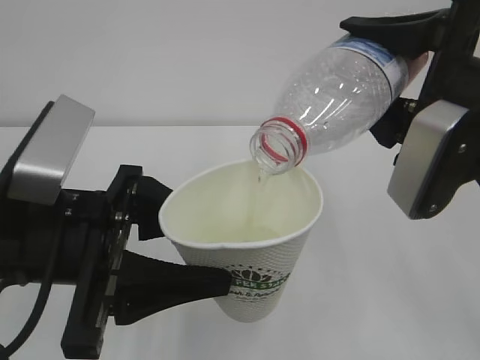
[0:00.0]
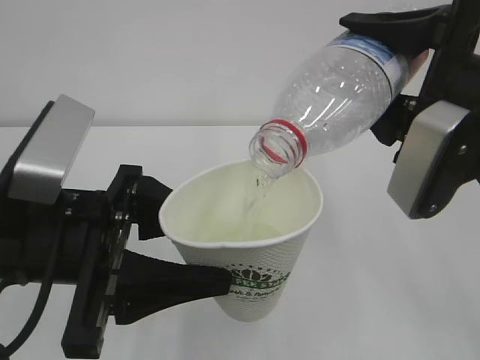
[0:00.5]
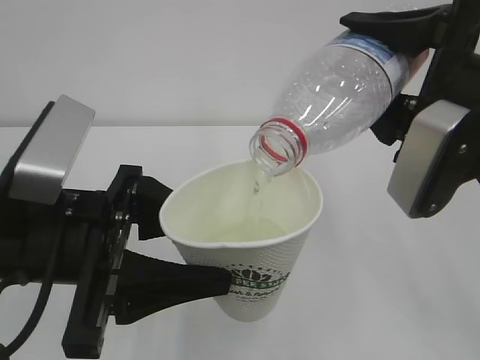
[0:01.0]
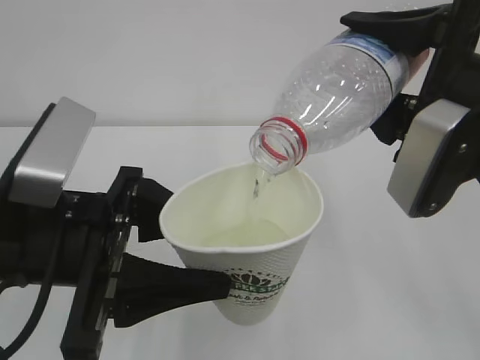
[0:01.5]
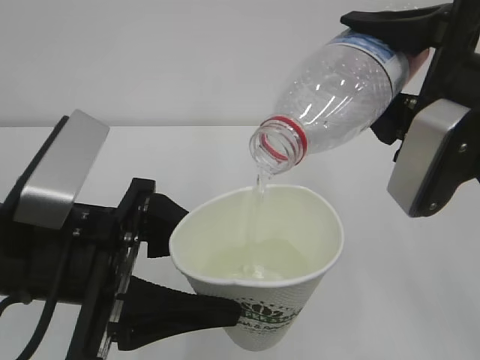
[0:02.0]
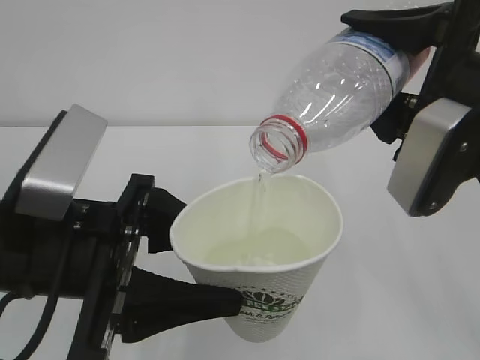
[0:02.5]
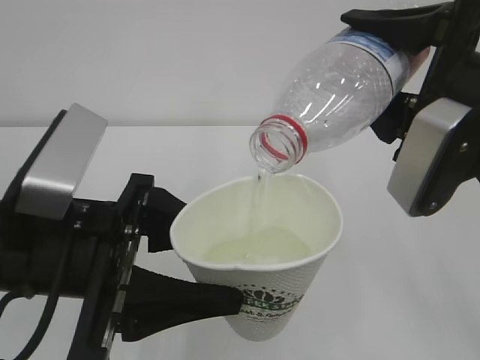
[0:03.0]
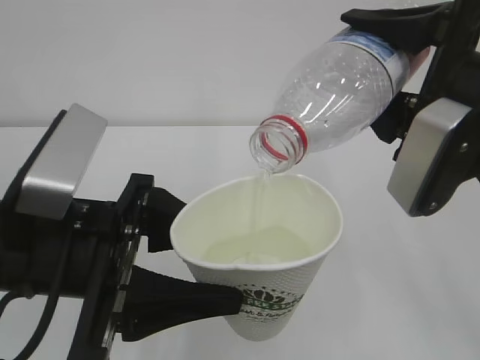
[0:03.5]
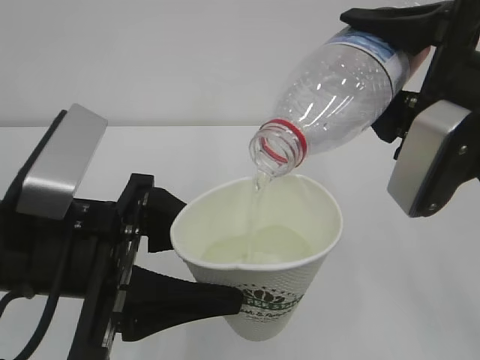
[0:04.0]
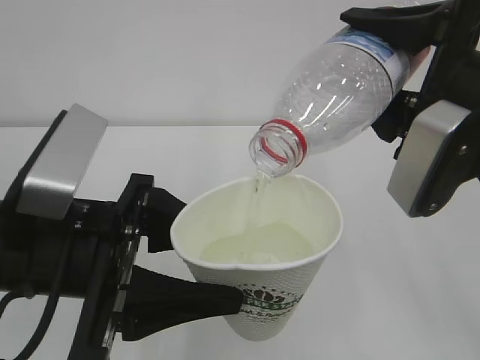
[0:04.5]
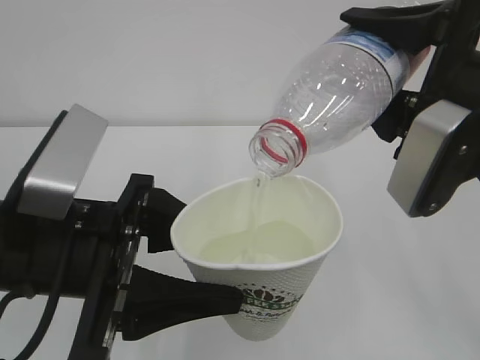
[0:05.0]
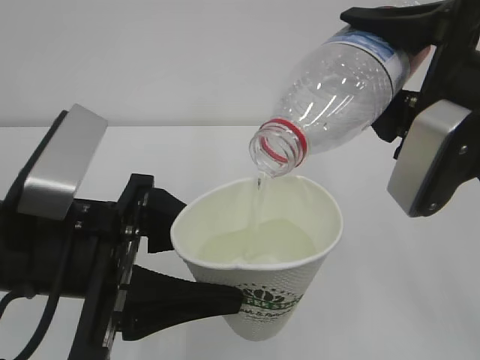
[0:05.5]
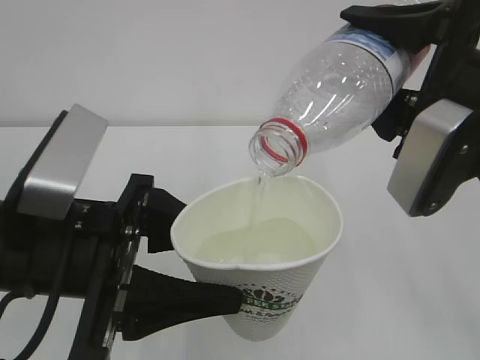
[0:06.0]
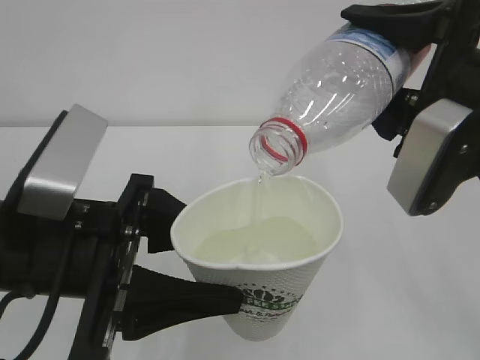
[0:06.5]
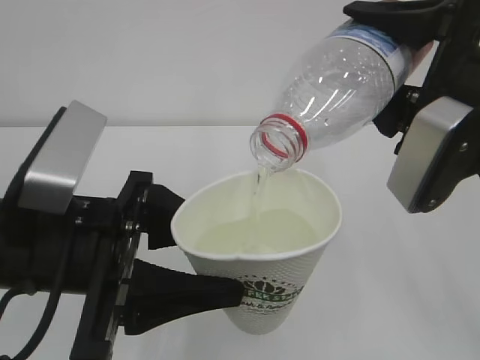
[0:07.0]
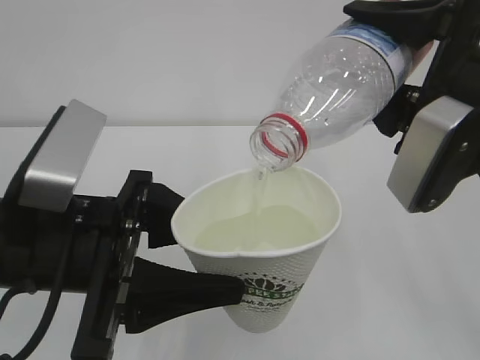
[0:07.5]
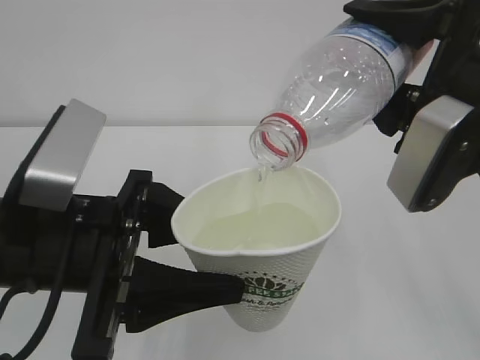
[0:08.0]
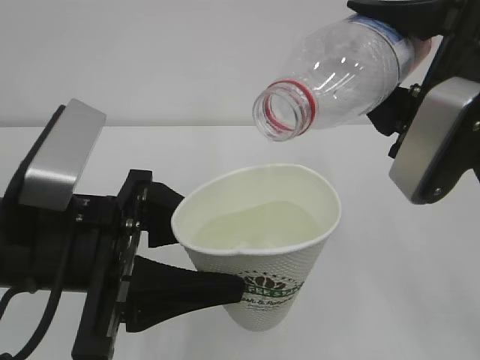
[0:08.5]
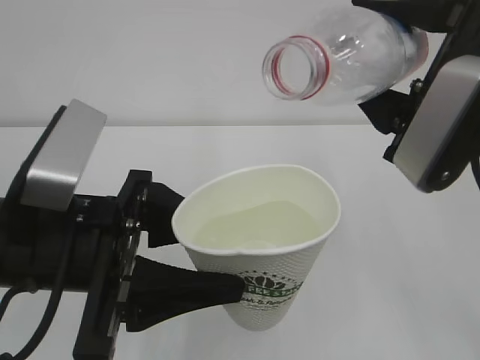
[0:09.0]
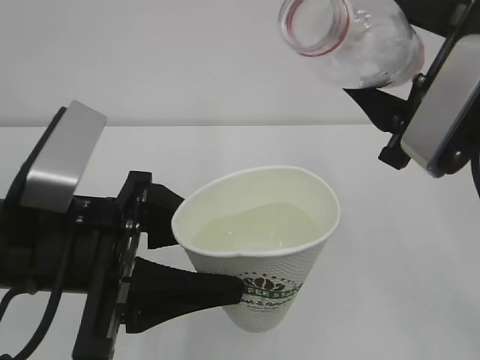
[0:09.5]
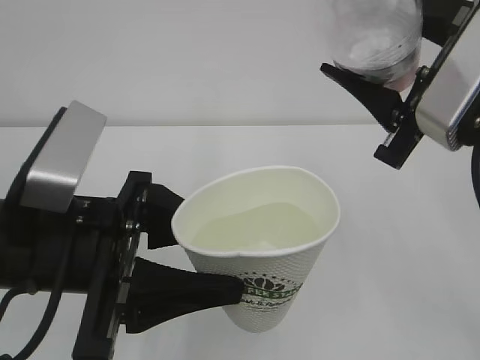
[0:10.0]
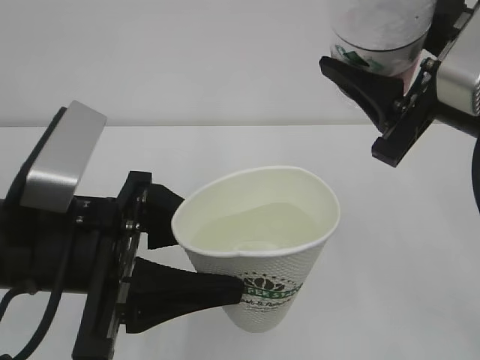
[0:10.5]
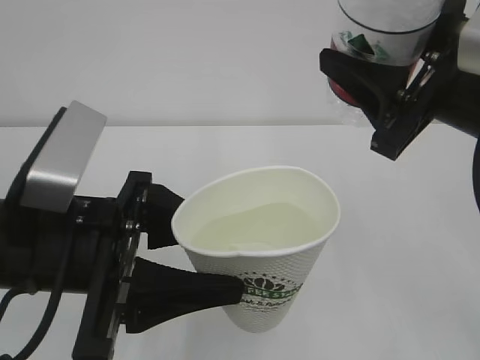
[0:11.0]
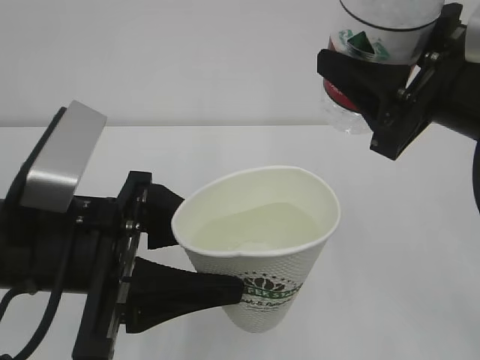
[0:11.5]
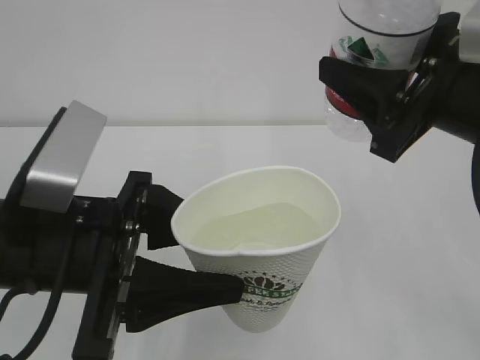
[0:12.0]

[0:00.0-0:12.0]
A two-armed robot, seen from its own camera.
0:00.0 to 0:08.0: Both grippers stay about where they are.

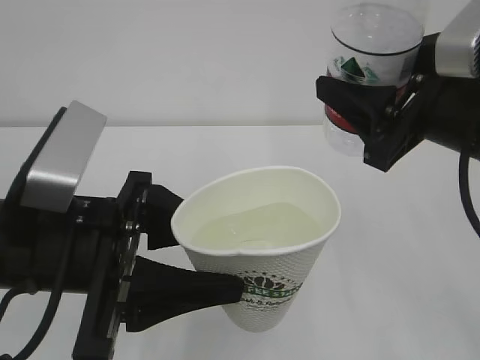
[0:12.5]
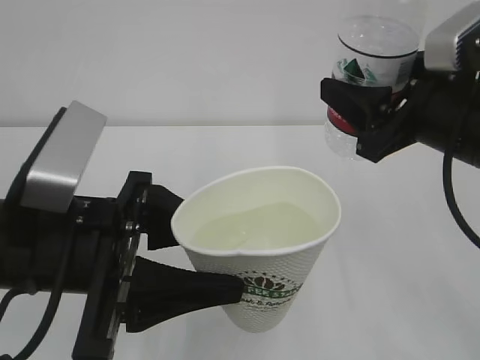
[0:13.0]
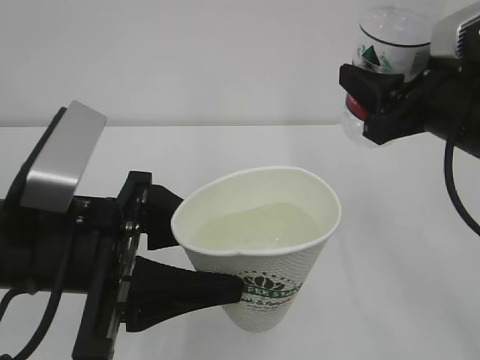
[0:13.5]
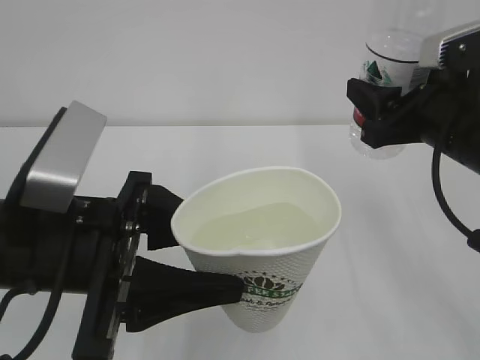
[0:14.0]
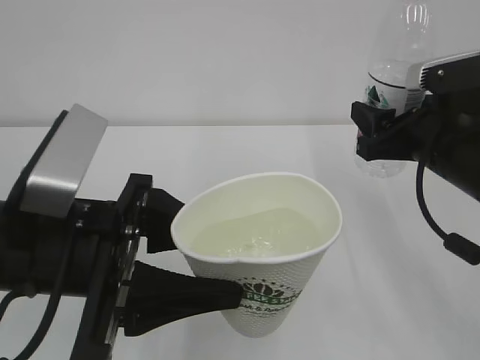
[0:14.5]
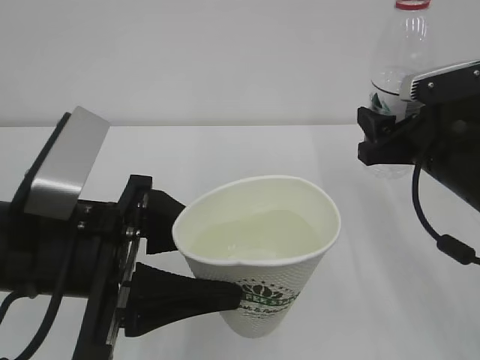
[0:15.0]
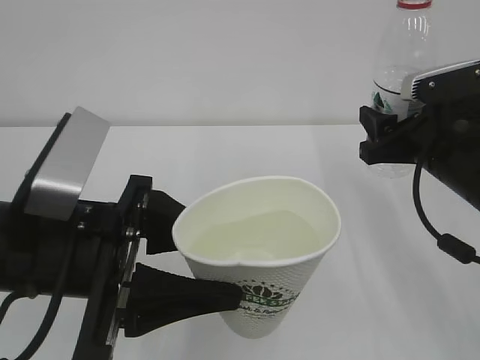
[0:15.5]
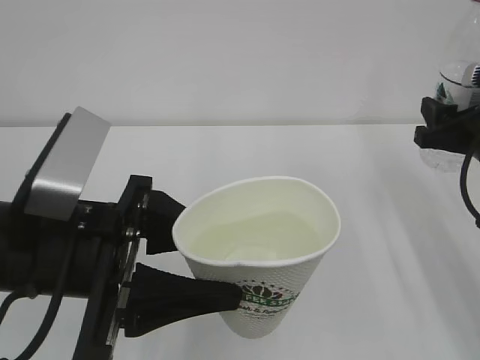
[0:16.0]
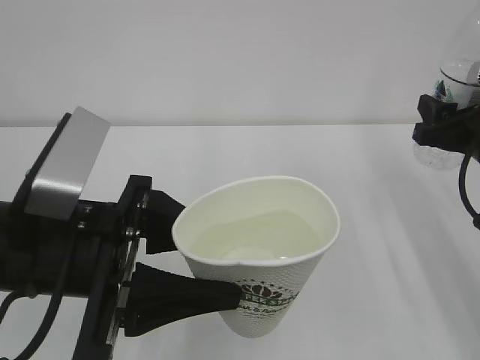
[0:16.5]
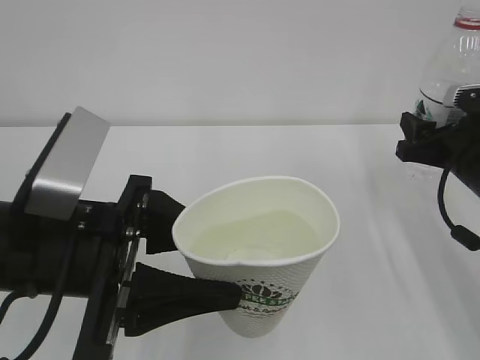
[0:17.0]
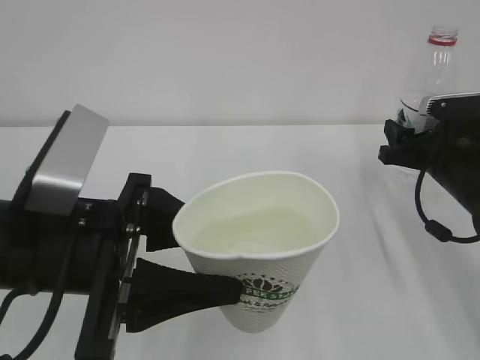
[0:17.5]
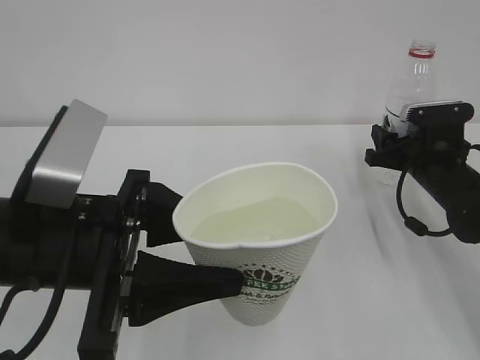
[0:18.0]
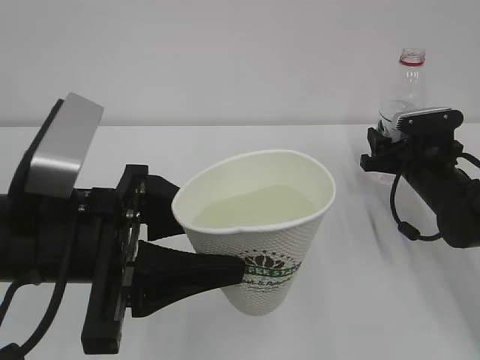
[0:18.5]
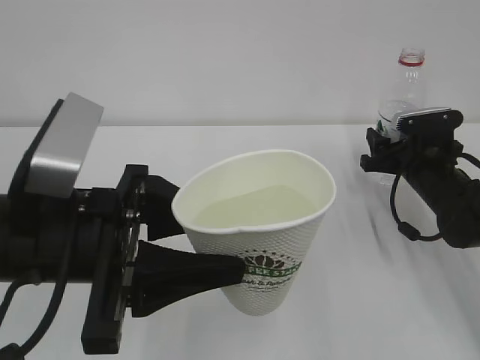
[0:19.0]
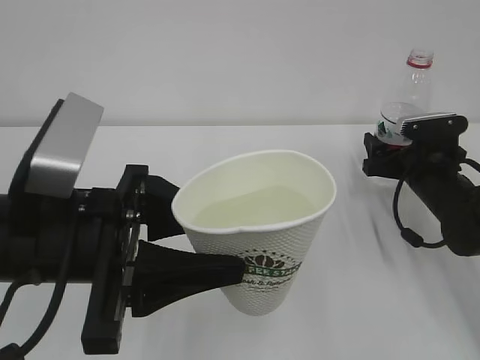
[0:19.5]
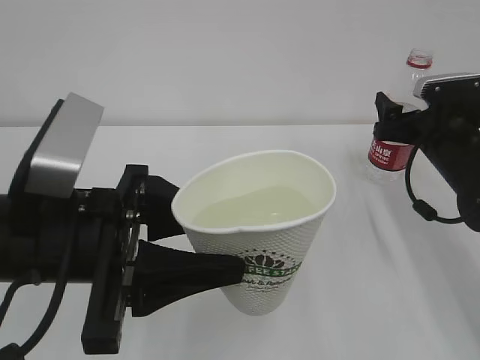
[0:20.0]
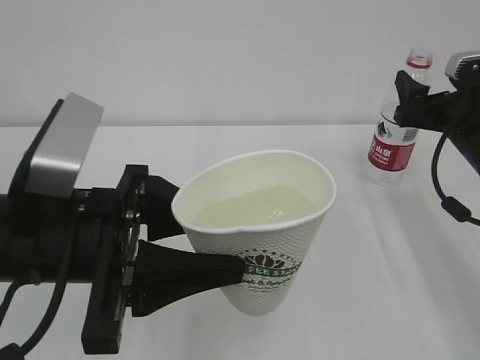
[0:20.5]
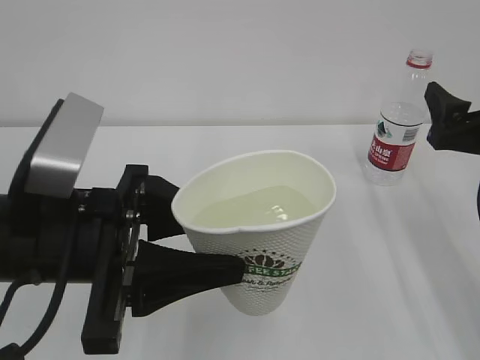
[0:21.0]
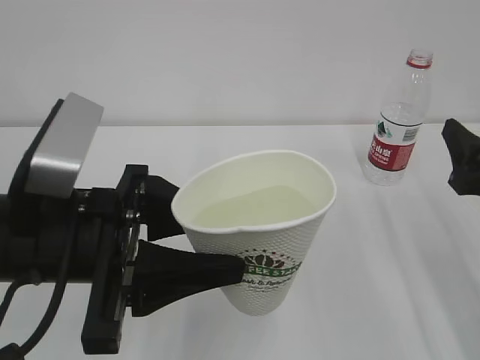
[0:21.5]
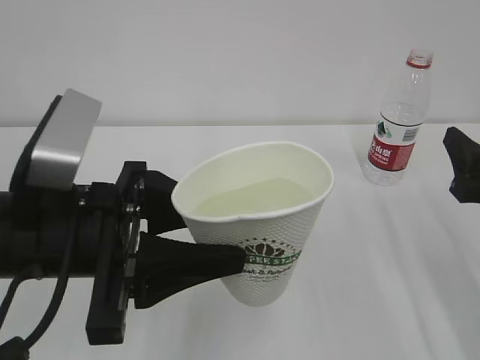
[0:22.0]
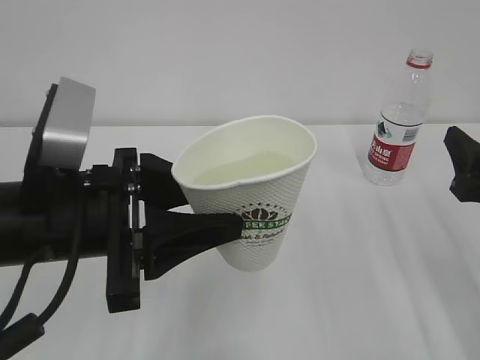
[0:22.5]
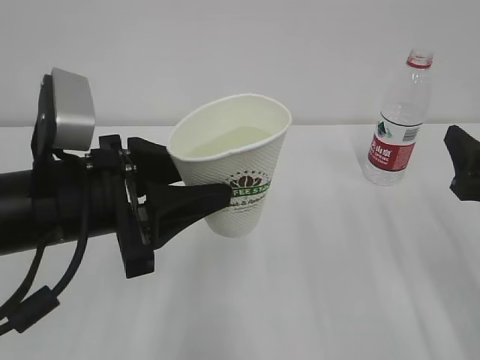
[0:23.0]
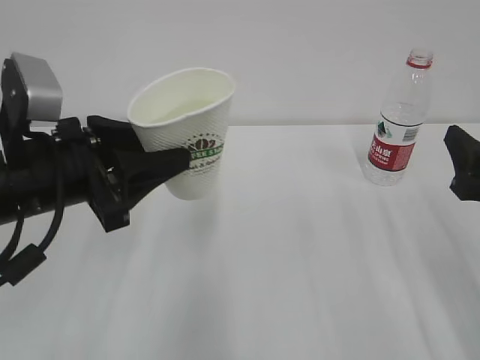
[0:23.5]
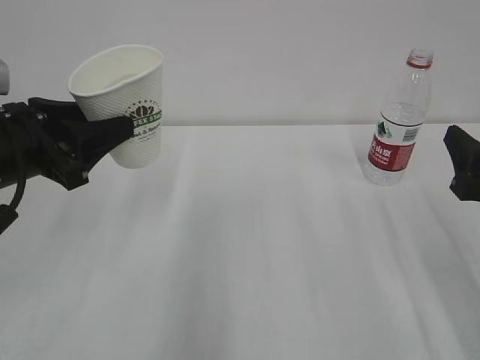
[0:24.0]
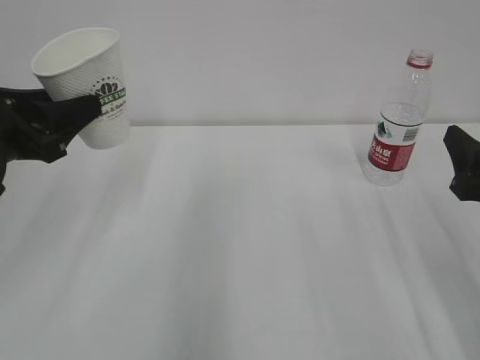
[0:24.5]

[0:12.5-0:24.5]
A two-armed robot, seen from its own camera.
0:12.5 to 0:14.5: The right gripper goes approximately 10 cm downward and forward.
0:14.5 to 0:16.5: The right gripper moves to the right, roughly 5 cm.
0:16.5 to 0:18.5: The right gripper is displaced downward and forward by about 15 cm.
0:18.5 to 0:20.5: The right gripper shifts about 10 cm upward and backward, and opens up.
0:20.5 to 0:22.5: The right gripper heads backward, covering some 10 cm.
0:22.5 to 0:24.5: The left gripper goes about 15 cm to the left and forward.

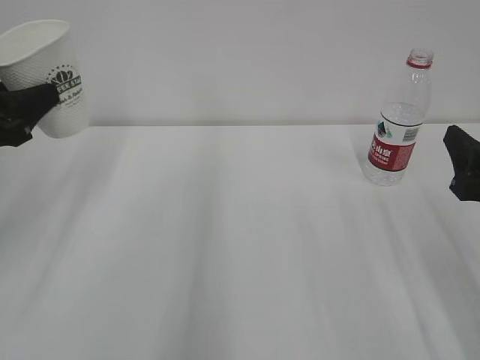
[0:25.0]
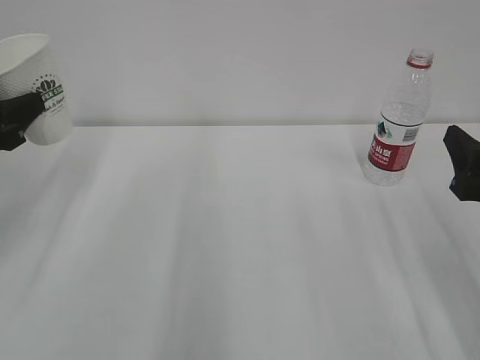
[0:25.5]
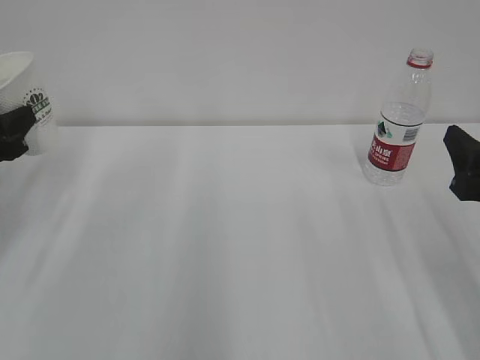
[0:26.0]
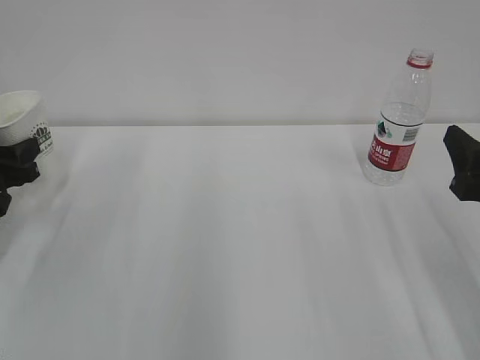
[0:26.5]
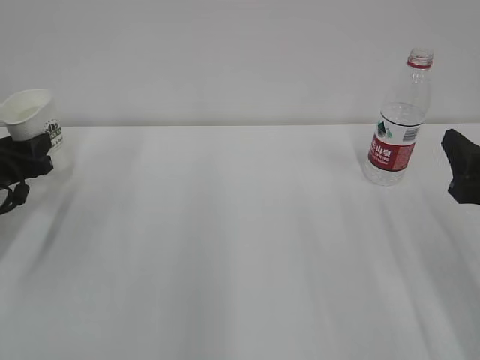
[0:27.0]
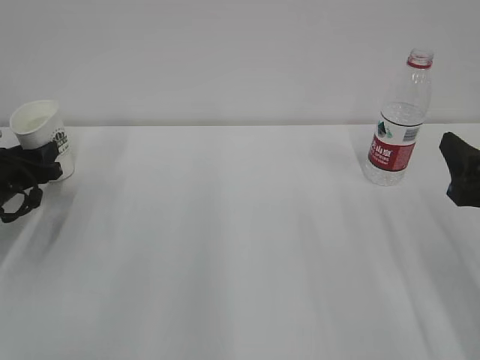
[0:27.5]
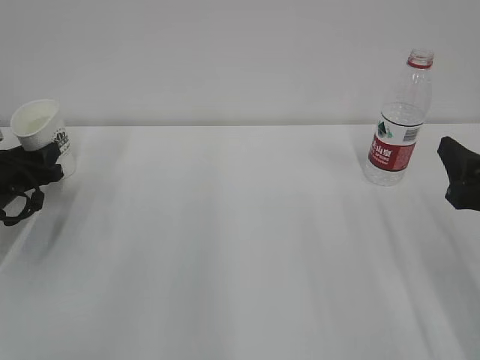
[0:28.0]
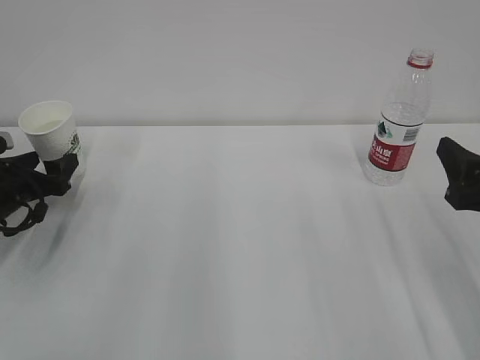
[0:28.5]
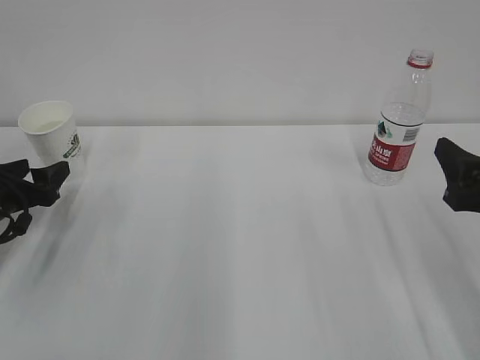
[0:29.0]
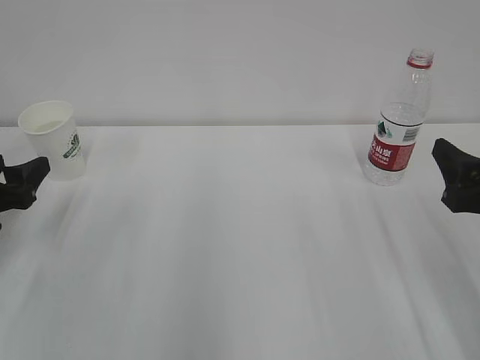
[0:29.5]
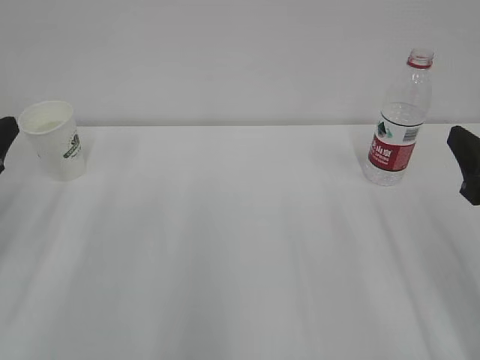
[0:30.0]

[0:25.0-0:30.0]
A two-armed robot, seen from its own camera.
0:25.0 to 0:27.5: The left gripper heads downward and forward, covering some 15 cm.
0:27.5 to 0:30.0: The left gripper moves backward and upward, some 15 cm, and opens up.